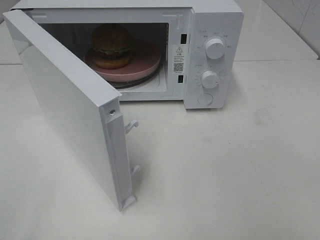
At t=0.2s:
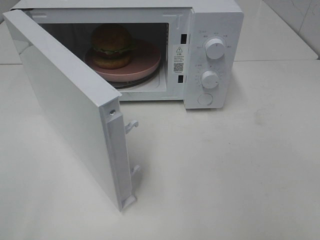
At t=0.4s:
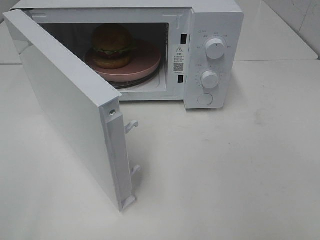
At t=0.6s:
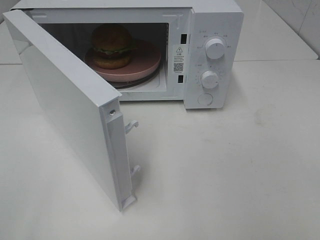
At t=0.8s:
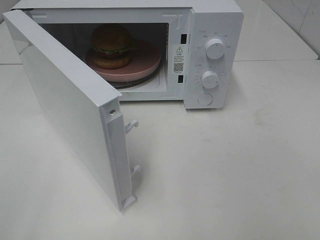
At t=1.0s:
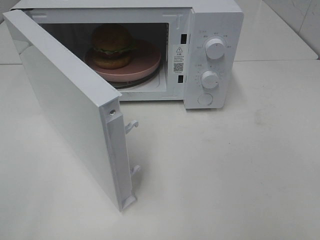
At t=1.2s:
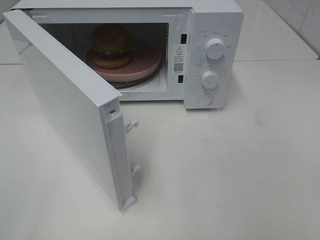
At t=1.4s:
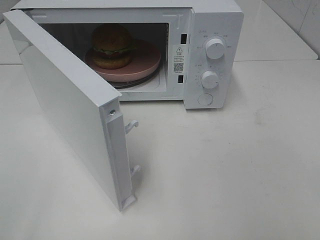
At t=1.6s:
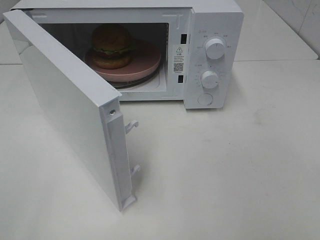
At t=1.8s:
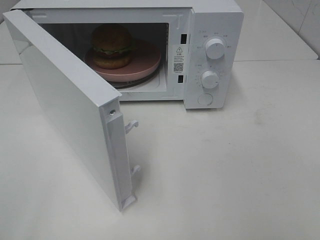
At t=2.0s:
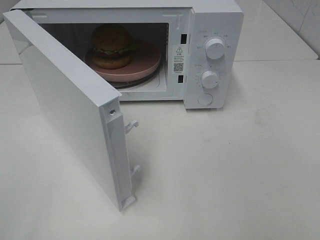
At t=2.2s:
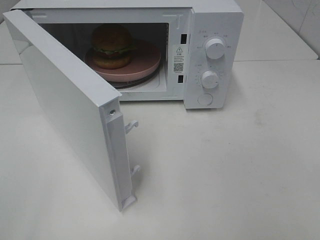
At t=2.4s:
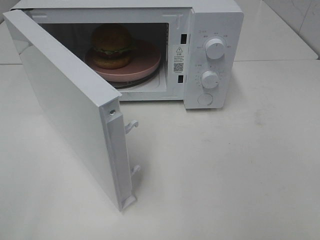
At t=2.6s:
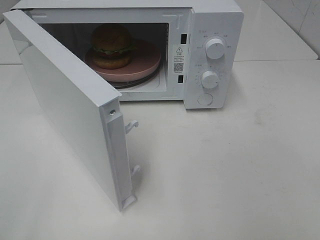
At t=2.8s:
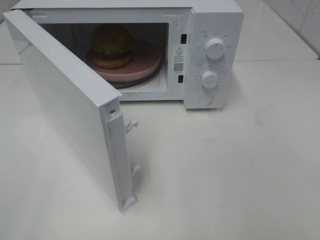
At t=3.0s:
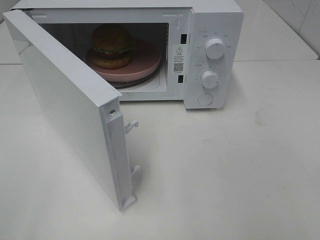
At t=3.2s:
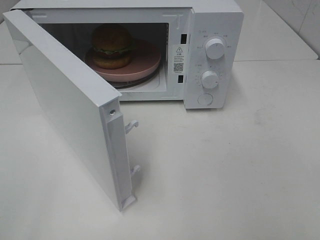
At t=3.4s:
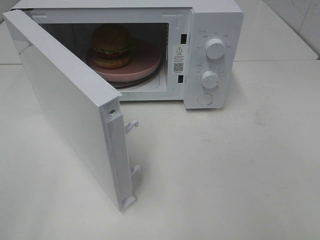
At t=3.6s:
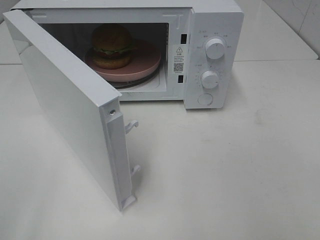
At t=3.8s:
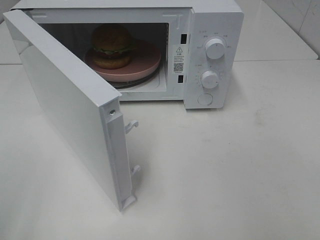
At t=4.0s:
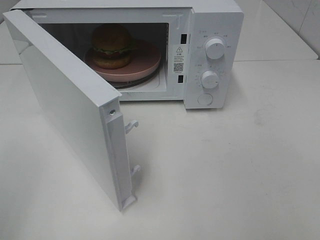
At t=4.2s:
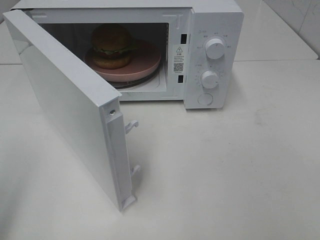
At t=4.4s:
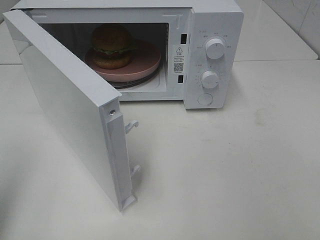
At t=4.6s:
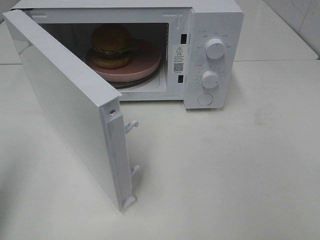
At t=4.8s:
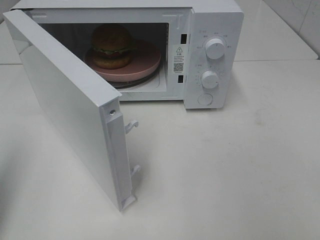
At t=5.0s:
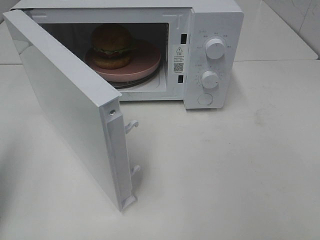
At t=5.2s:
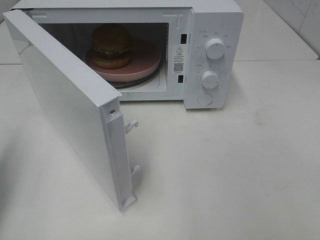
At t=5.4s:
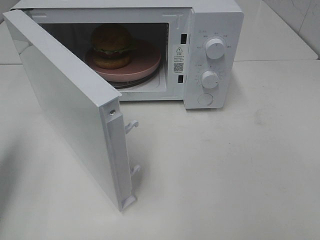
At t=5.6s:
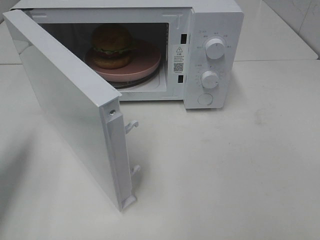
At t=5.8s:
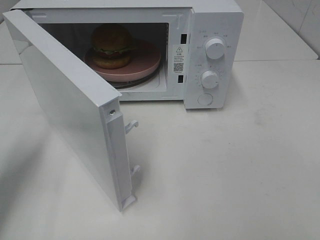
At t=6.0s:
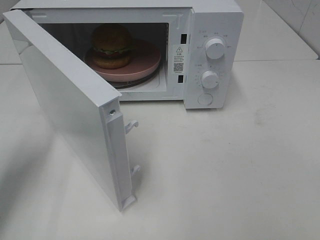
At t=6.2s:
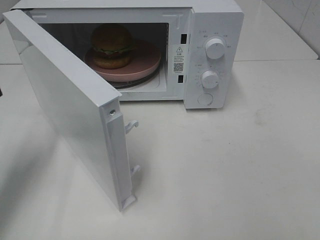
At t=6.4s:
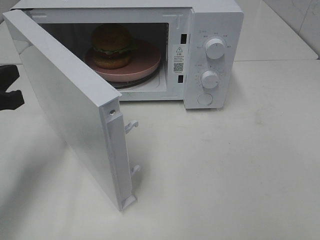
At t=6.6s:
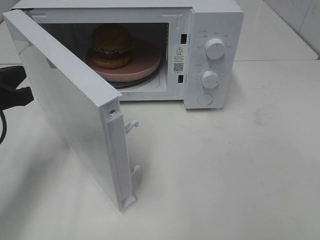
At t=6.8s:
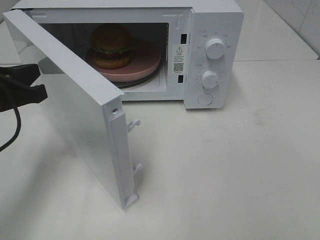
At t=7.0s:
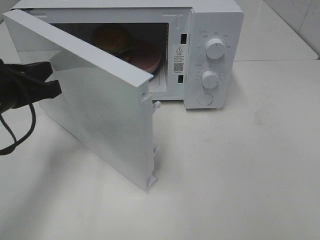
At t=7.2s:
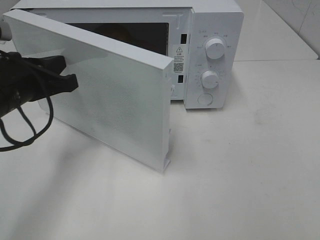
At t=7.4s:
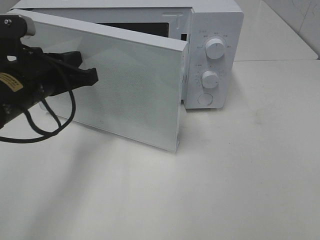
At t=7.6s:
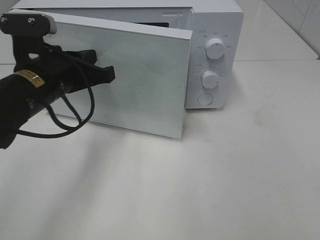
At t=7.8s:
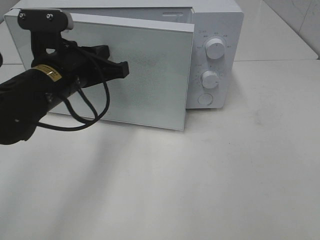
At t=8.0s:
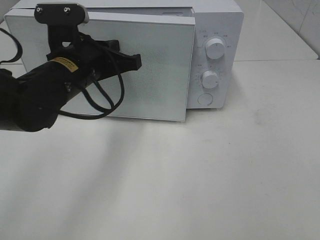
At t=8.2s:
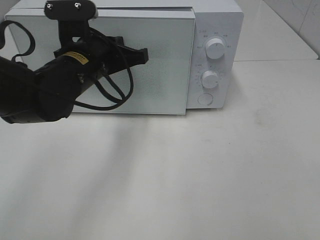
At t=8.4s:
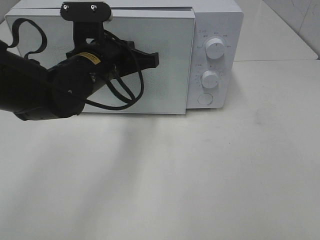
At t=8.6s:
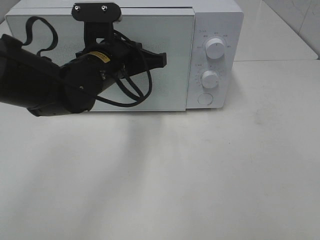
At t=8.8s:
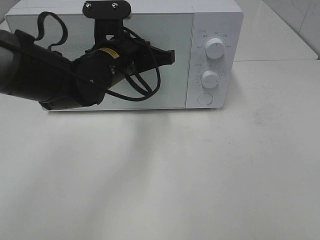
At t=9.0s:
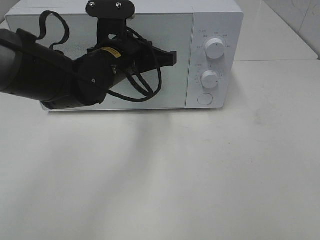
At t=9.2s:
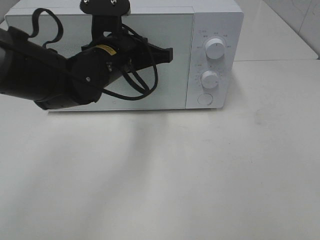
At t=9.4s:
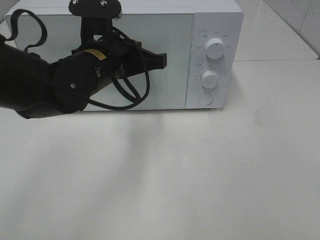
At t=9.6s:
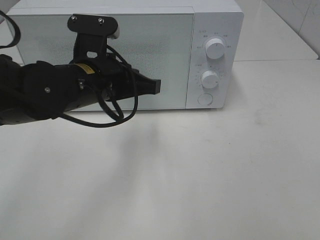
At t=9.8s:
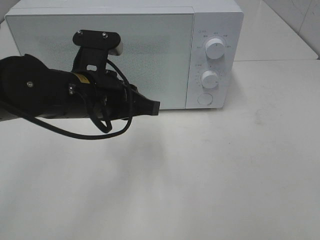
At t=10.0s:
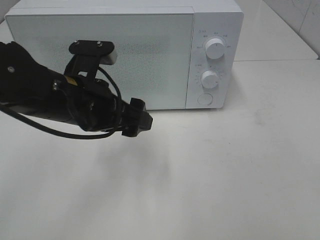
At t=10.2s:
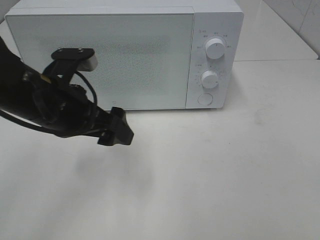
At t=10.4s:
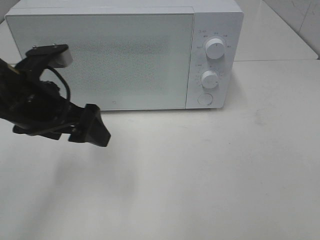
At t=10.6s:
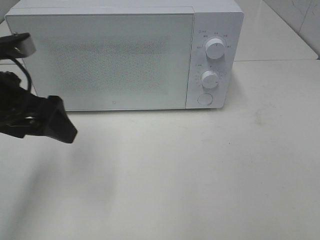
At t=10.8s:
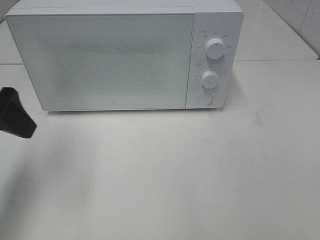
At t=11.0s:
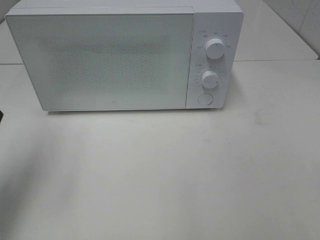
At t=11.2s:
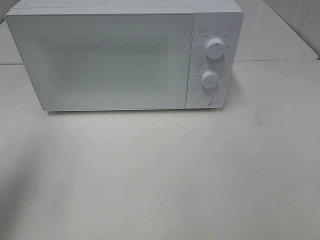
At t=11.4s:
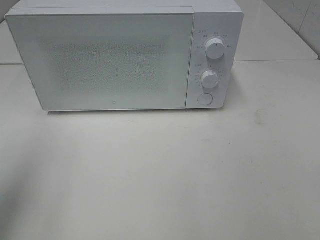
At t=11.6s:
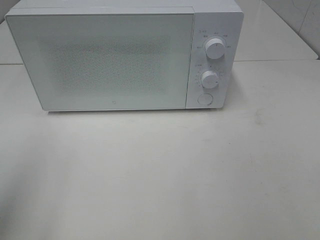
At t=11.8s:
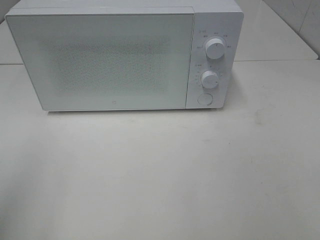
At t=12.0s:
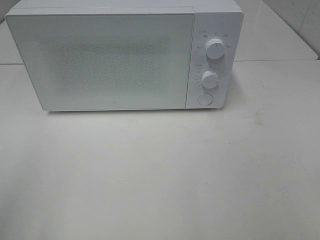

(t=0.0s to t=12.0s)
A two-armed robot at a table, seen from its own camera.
Task of the whole recording: Heat the burger.
Step, t=0.0s - t=9.4s: Left hand: close the microwave door.
t=1.6s - t=3.0s: Both grippers stay about where they are.
t=3.0s - t=4.4s: The left gripper goes roughly 10 cm forward, and closes.
t=4.4s - t=6.0s: The left gripper heads forward and downward, covering approximately 15 cm.
t=6.0s - t=7.6s: The left gripper is displaced to the right by approximately 15 cm.
t=7.6s - t=9.0s: The left gripper goes approximately 10 cm to the right and forward.
t=9.0s - t=10.4s: The left gripper shifts approximately 15 cm to the left and backward, and opens its fingers.
t=10.4s - t=12.0s: The left gripper is displaced backward, to the left and upward by approximately 25 cm.

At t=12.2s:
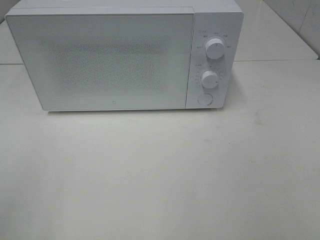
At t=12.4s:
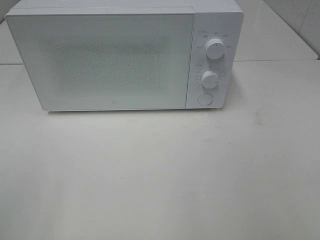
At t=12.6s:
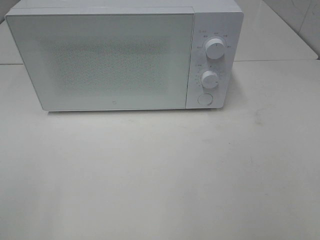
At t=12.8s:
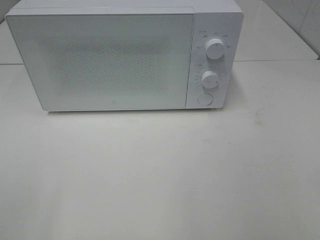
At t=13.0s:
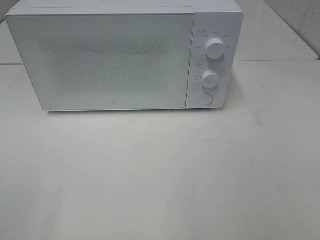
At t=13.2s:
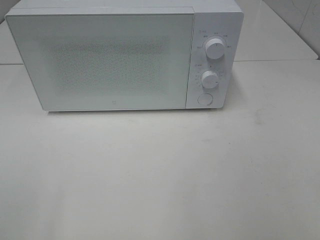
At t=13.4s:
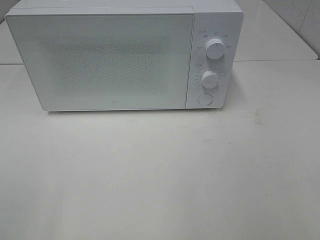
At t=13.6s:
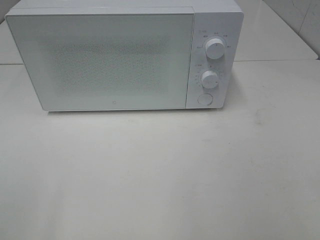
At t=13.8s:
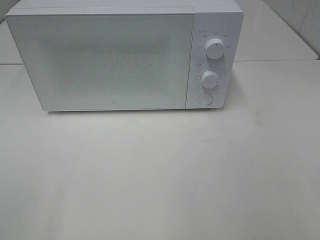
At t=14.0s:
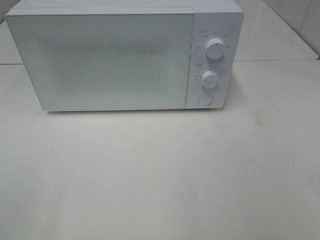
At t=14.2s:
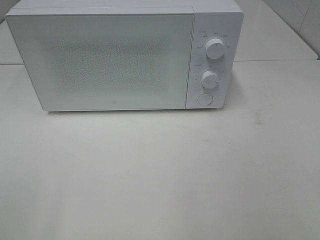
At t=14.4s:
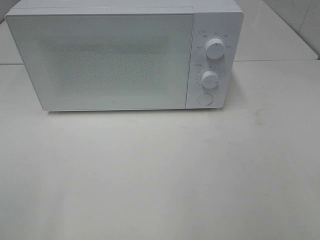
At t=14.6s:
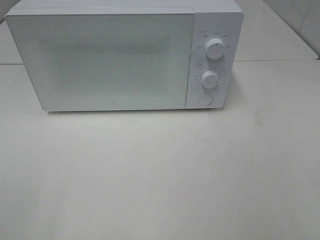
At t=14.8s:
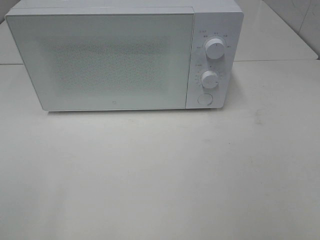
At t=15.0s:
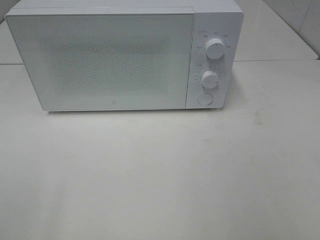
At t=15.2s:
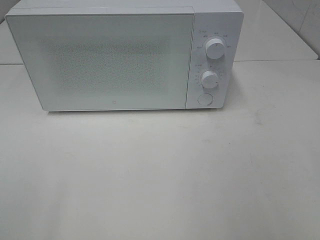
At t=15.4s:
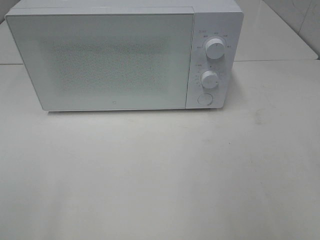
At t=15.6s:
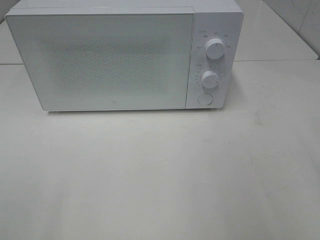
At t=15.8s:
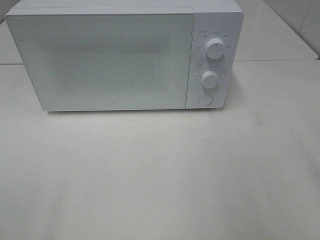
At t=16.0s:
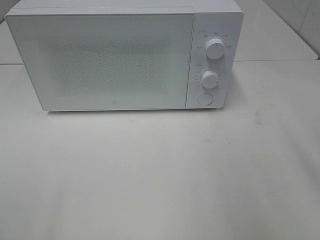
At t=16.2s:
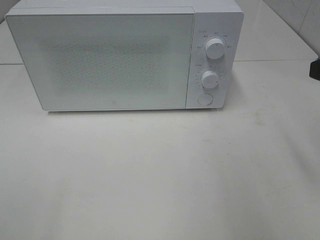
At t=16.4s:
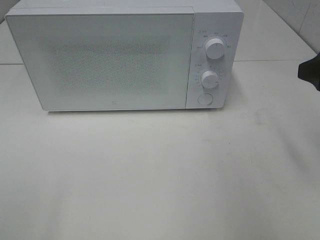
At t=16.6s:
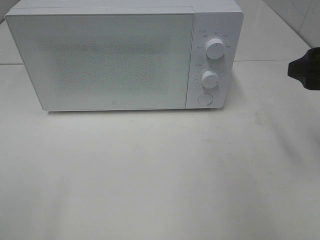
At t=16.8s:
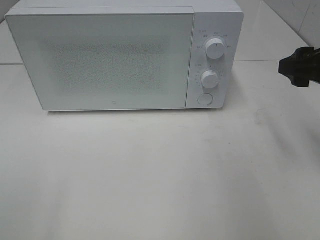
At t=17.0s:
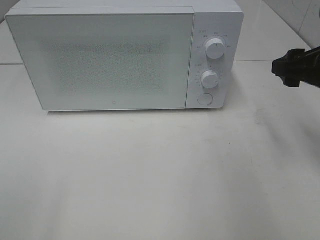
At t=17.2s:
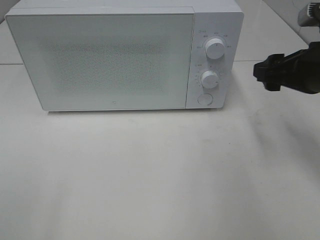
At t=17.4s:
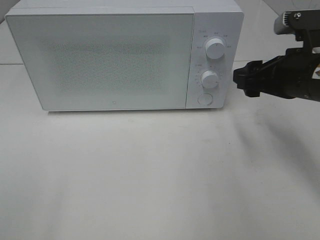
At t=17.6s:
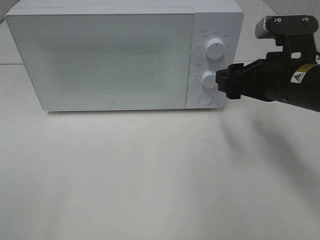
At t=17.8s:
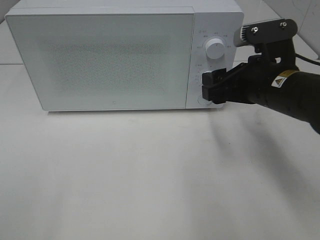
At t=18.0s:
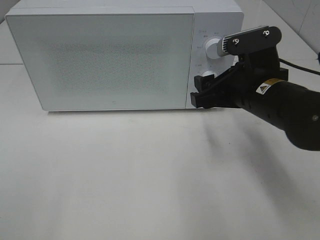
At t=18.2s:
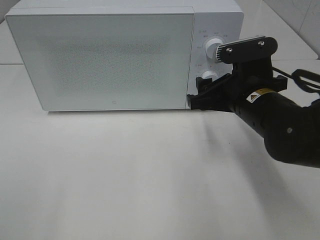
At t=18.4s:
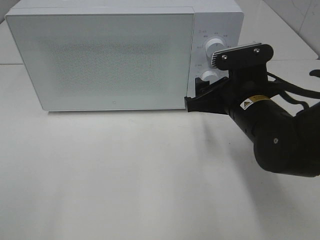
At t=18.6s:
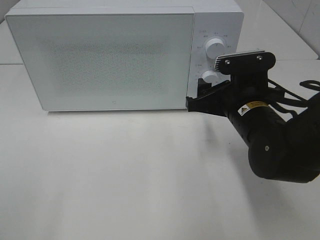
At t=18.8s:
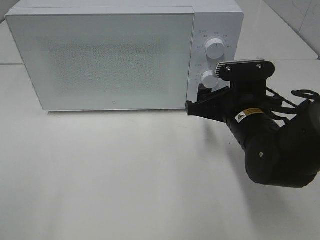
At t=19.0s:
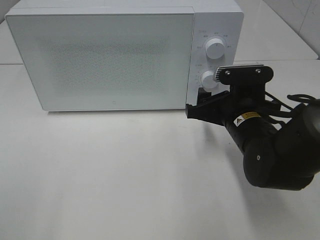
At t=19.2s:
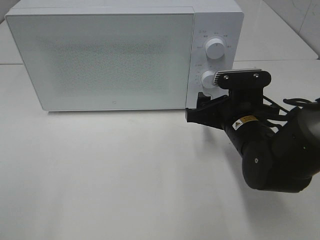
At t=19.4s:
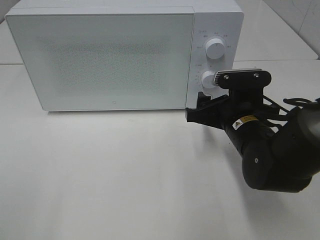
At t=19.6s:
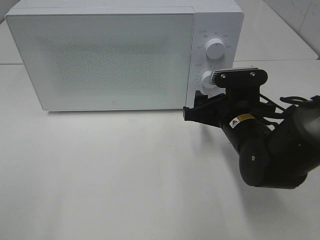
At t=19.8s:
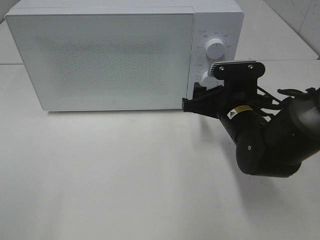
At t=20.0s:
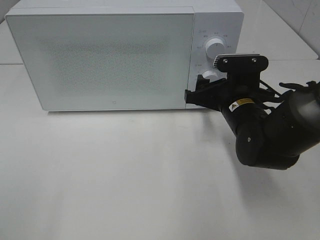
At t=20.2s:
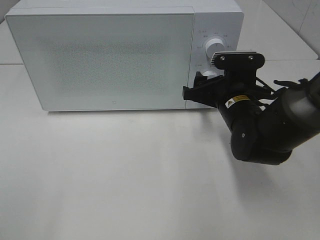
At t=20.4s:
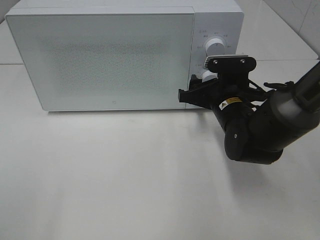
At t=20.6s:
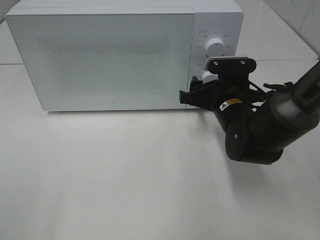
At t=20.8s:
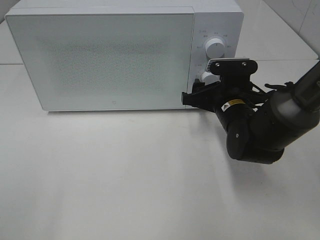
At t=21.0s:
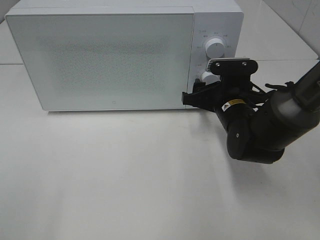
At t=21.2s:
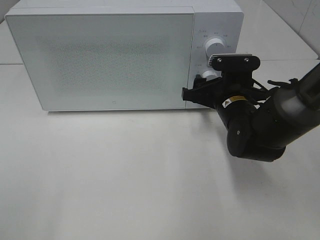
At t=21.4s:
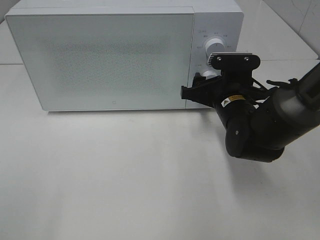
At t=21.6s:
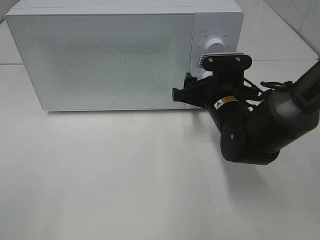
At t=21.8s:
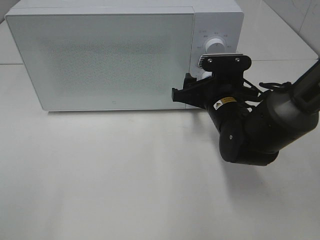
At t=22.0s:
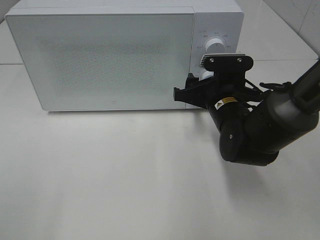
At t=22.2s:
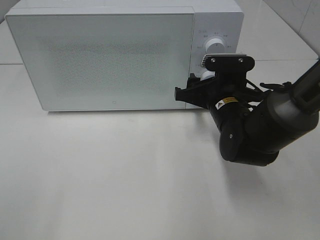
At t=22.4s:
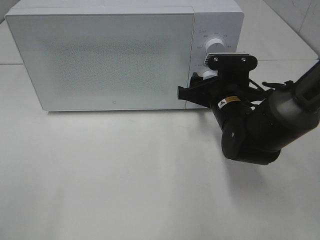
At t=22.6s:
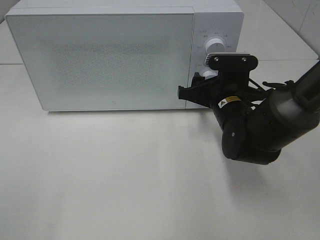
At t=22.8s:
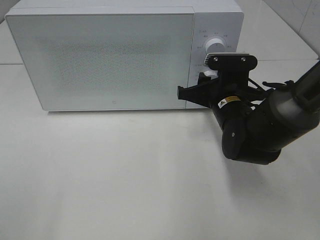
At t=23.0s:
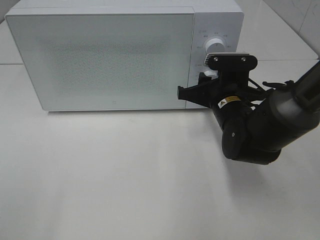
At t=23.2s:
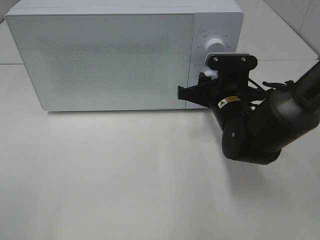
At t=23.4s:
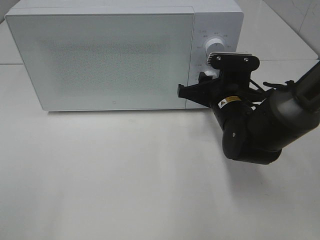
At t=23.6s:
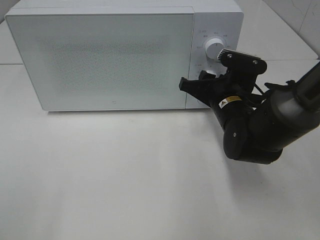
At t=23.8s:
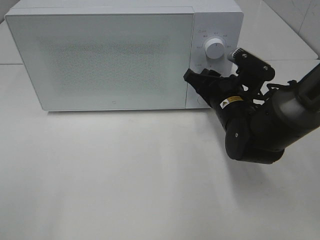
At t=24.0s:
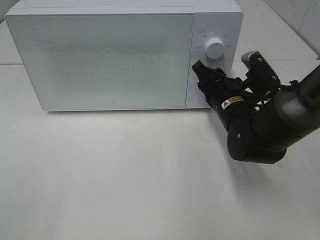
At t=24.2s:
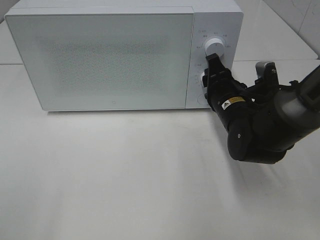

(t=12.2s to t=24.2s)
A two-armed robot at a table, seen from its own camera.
Task of the whole recording: Heat the burger.
t=15.2s - t=16.6s: The right gripper shifts roughly 15 cm forward.
t=16.6s - t=18.2s: The right gripper moves to the left and downward, approximately 15 cm.
t=18.2s - t=19.8s: The right gripper changes place by roughly 5 cm.
t=19.8s - t=22.6s: There are only small adjustments of the grippers.
